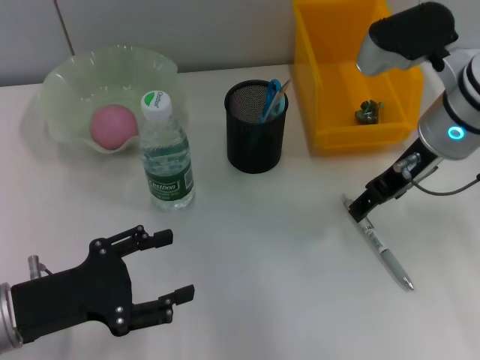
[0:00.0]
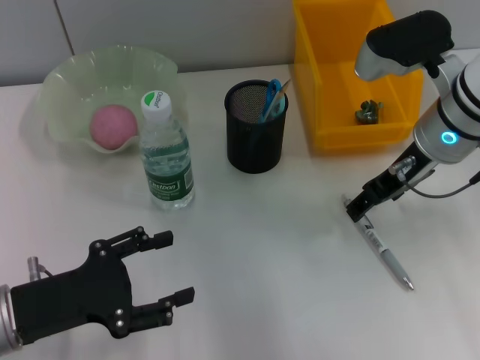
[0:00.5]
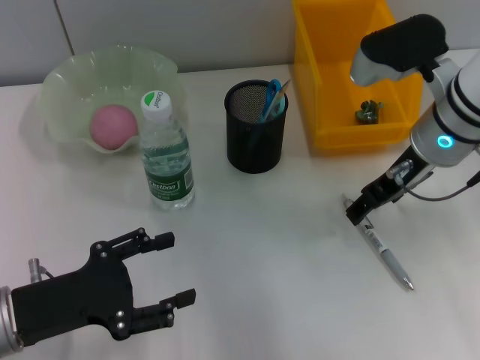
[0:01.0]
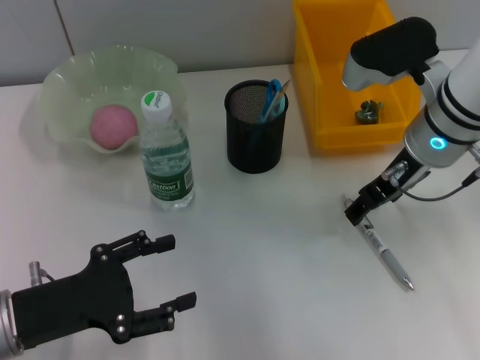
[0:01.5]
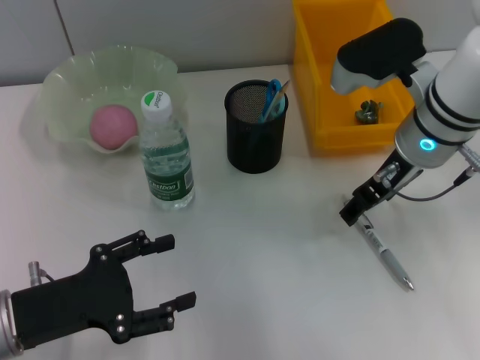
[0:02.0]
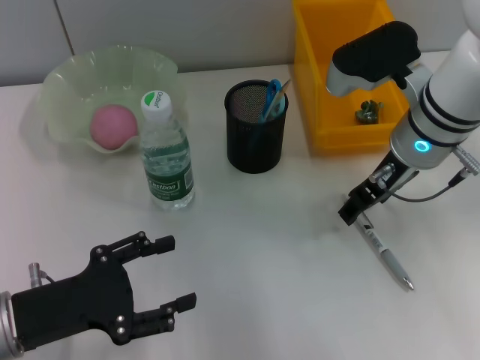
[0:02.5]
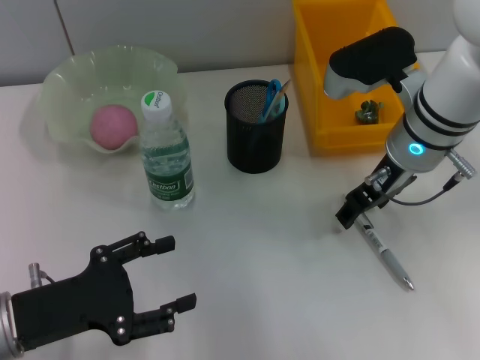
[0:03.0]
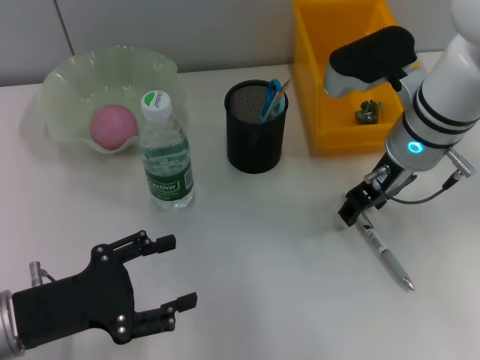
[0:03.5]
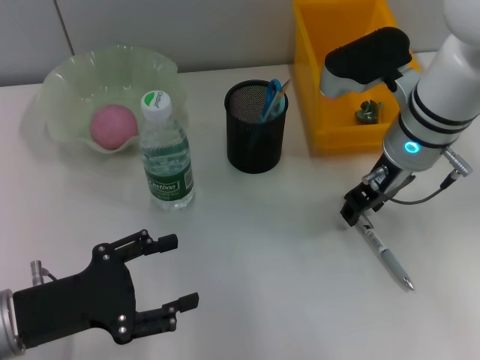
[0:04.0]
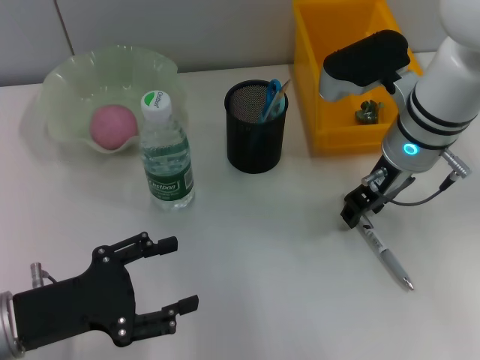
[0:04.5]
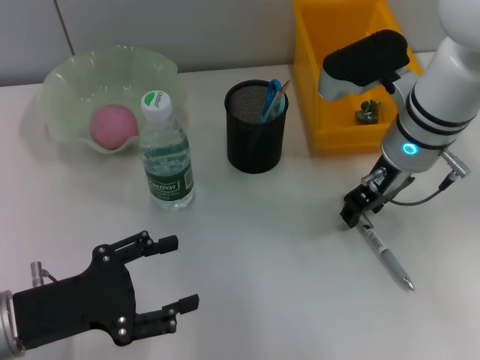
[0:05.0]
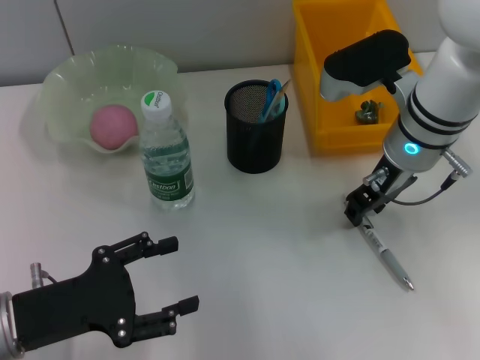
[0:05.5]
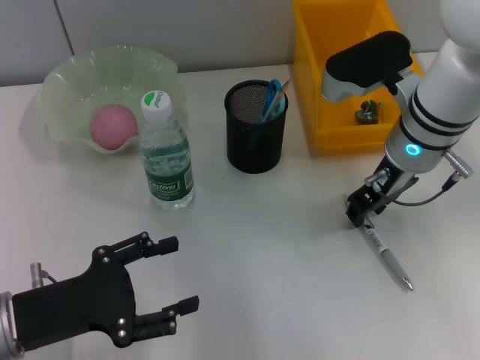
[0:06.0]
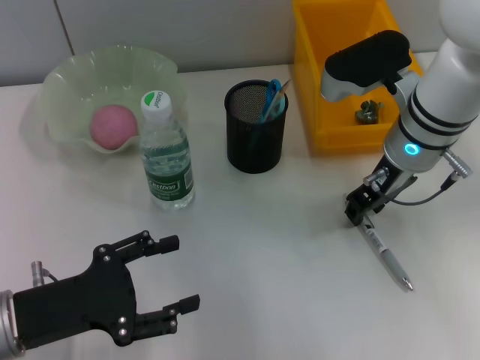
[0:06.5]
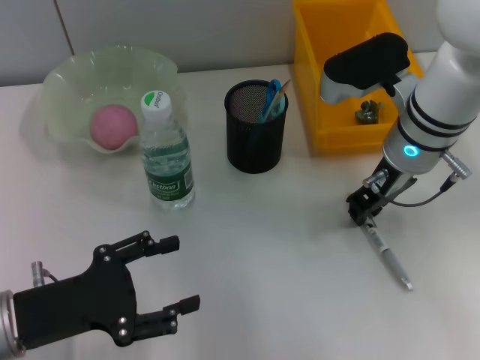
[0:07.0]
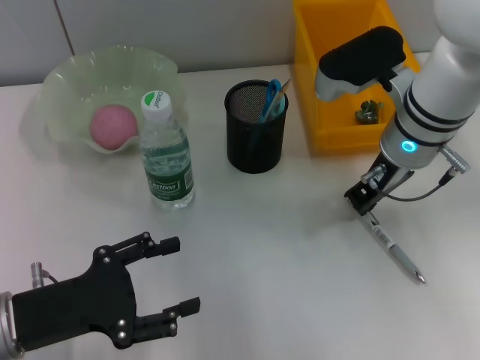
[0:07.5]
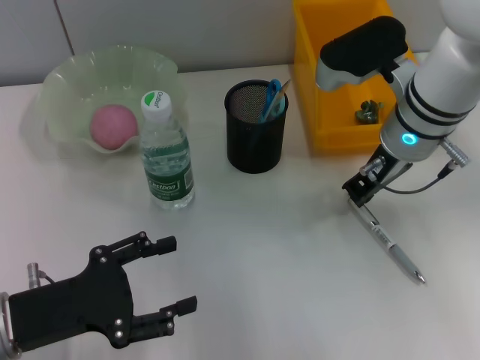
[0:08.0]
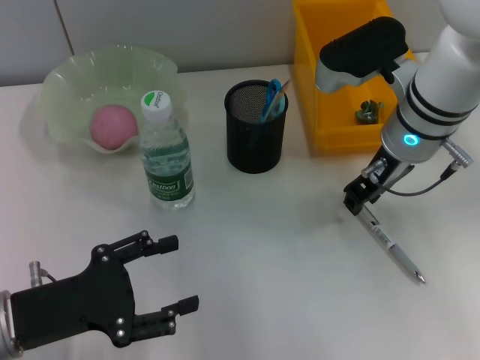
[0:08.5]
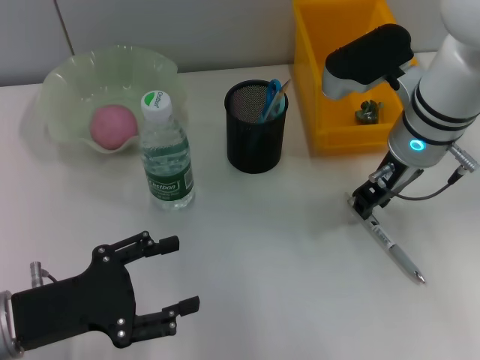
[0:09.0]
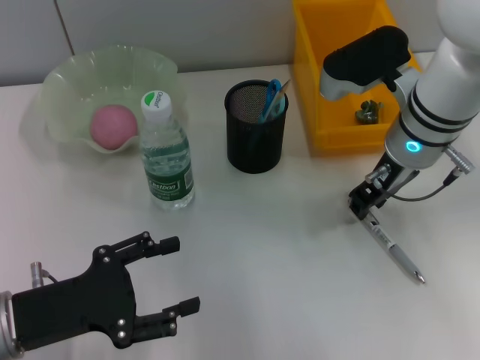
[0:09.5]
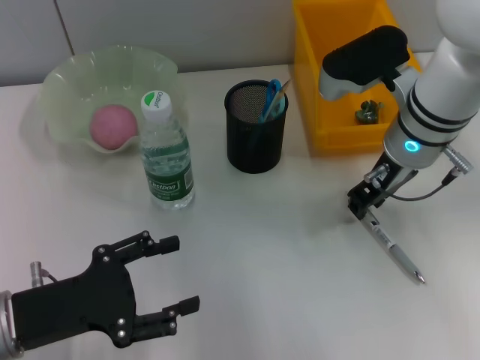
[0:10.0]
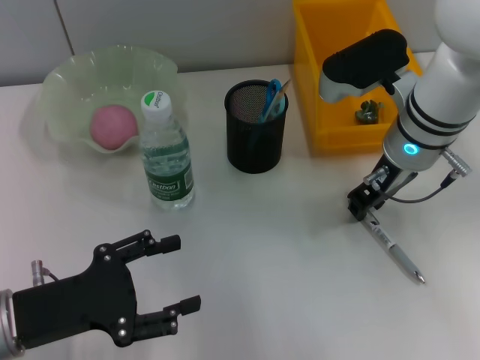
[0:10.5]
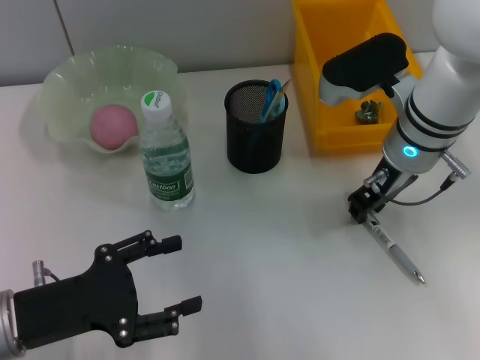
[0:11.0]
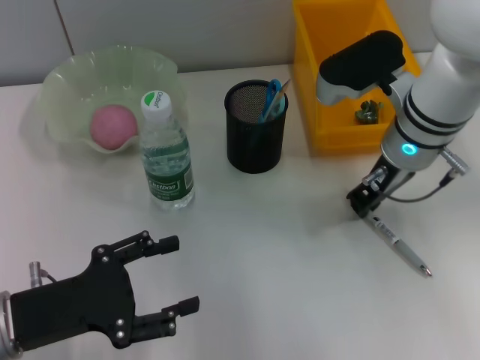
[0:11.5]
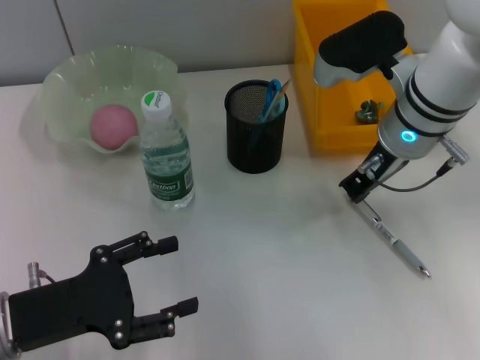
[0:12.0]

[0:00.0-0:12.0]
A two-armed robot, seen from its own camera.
0:00.0 to 0:02.0: The grippers make only small movements.
0:02.0 to 0:04.0: The right gripper closes its fingers.
0:04.0 to 0:06.0: Both grippers stay put.
0:06.0 to 0:08.0: The right gripper closes up.
0:08.0 to 0:10.0: Neither gripper changes place.
0:10.0 to 0:12.0: Both grippers stay put.

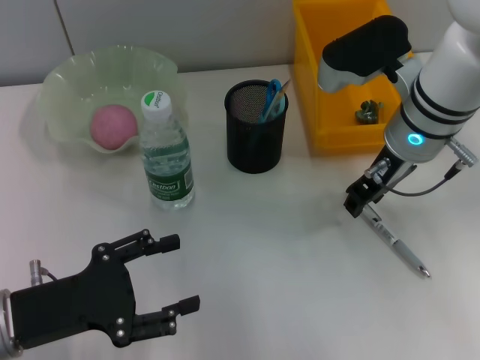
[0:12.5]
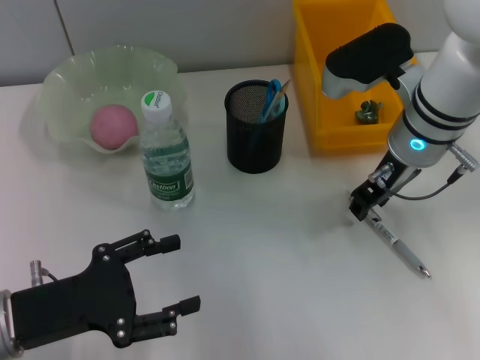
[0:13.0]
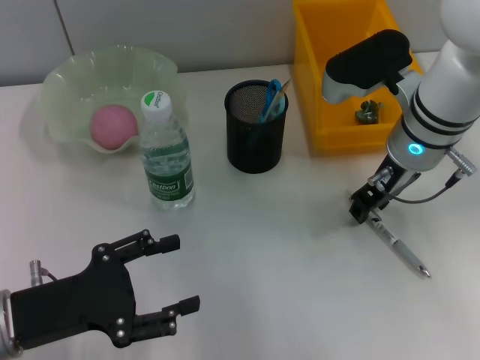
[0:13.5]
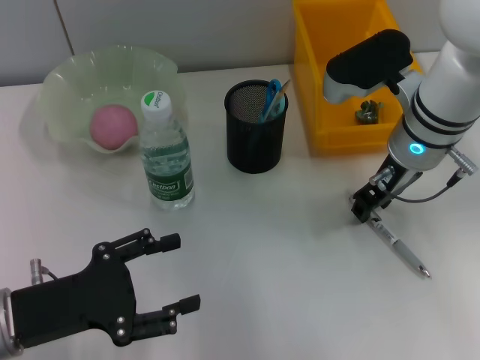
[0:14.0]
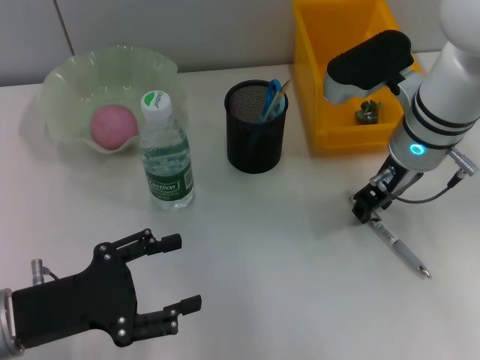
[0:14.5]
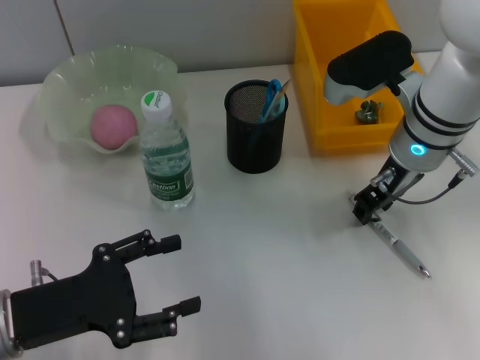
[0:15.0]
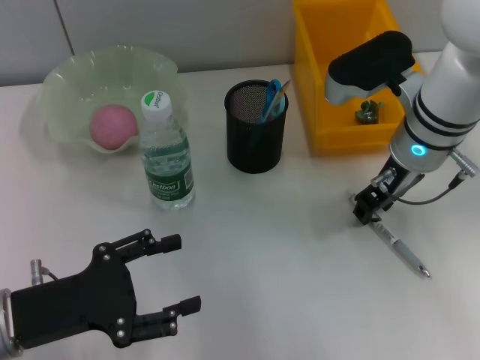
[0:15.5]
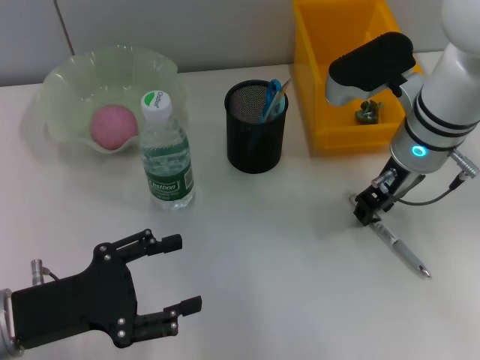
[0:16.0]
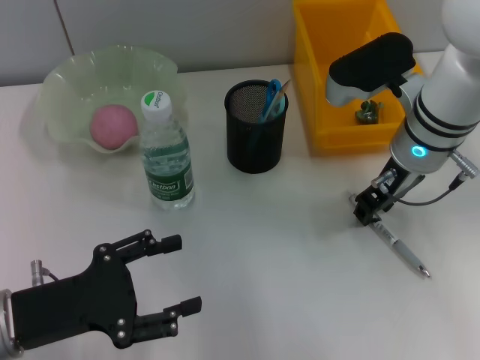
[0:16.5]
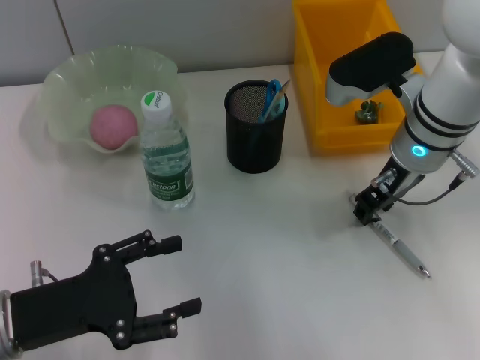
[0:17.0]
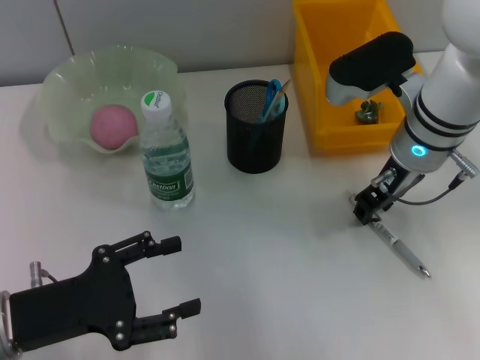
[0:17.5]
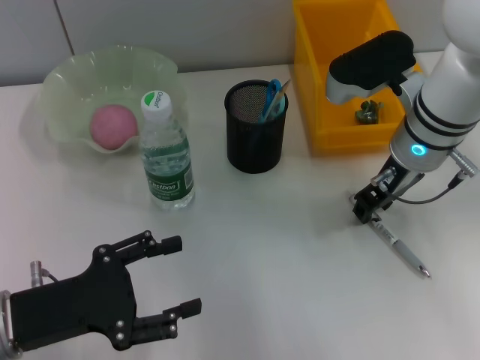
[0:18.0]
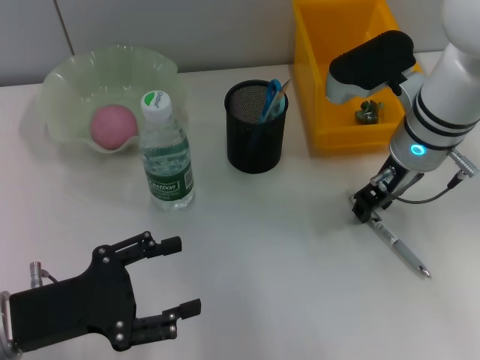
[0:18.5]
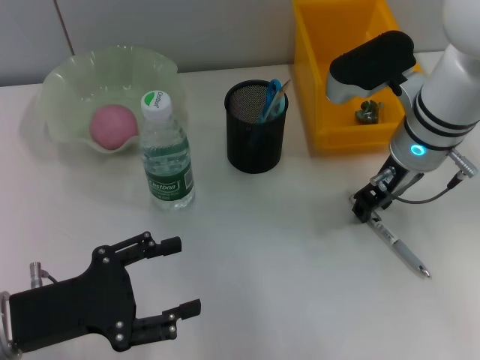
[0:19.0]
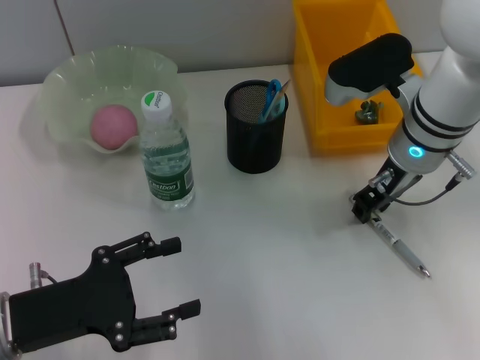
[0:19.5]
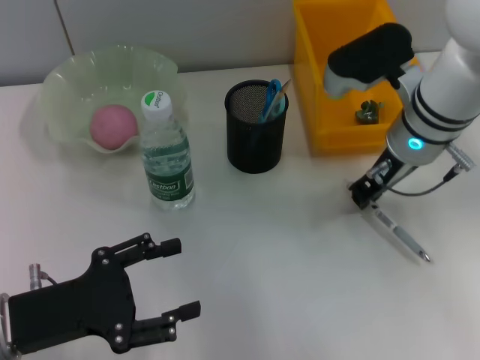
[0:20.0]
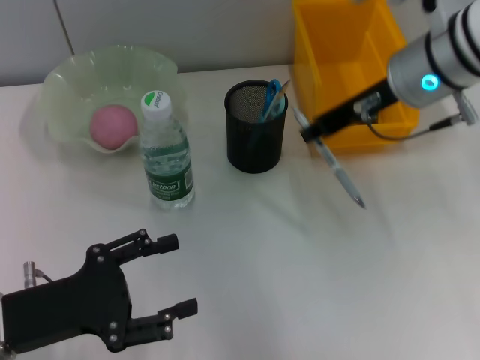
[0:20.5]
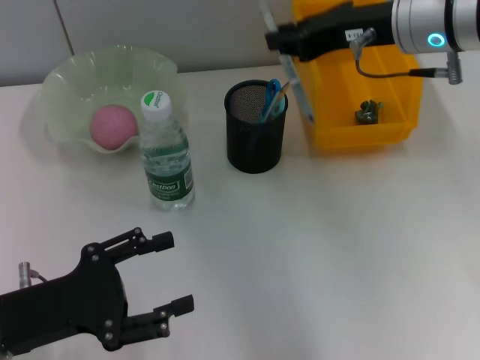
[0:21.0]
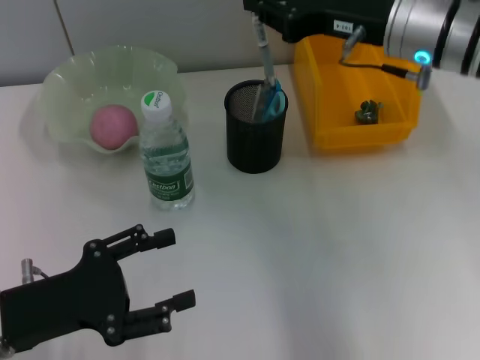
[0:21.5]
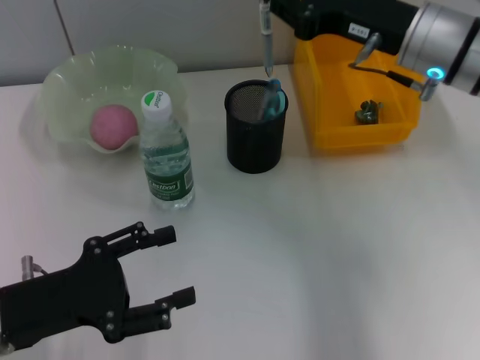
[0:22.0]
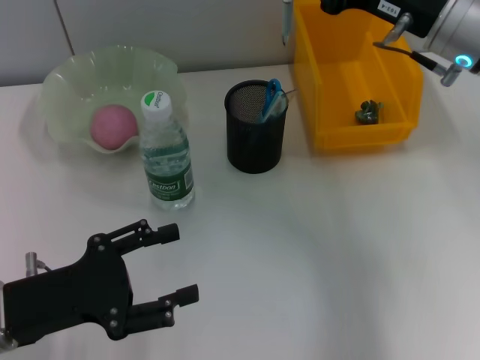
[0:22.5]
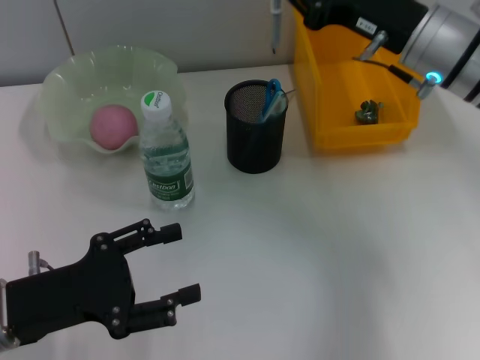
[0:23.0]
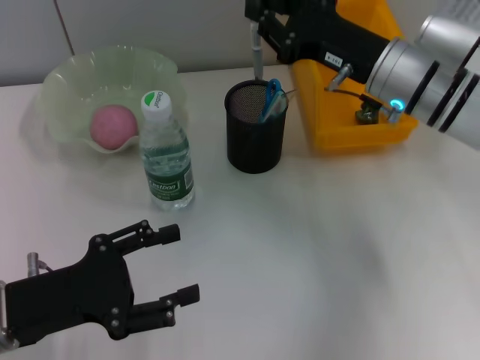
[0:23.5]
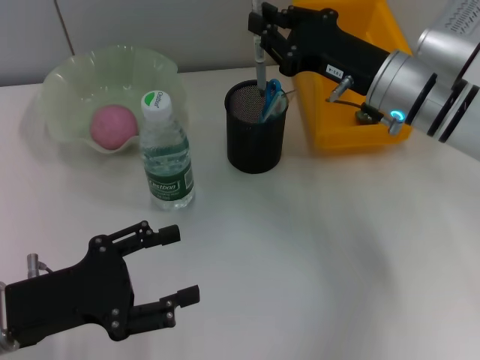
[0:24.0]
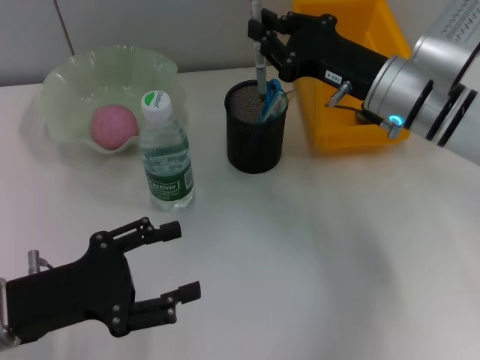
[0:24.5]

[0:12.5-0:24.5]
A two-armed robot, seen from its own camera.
Step, 0:12.5 to 0:19.5: Grab the gray spring-action pen with the right hand.
0:12.5 to 0:14.5: The grippers make only small movements.
0:14.5 to 0:18.5: Neither gripper changes place.
0:18.5 to 0:20.5: The right gripper moves upward, some 5 cm.
0:22.5 to 0:24.5: The right gripper heads downward, covering approximately 10 cm.

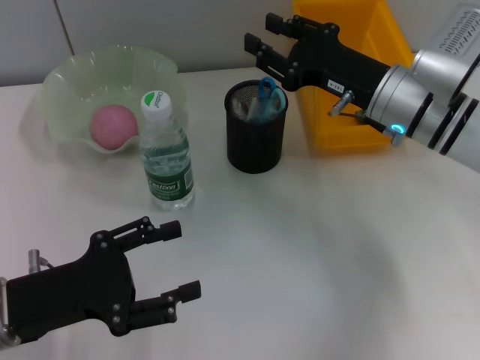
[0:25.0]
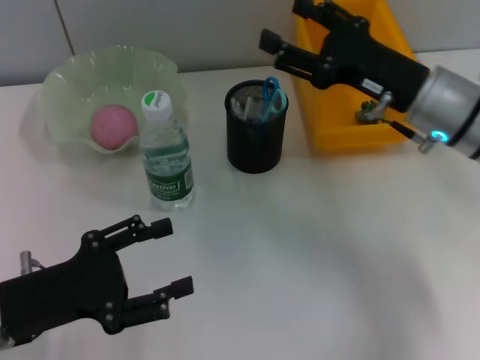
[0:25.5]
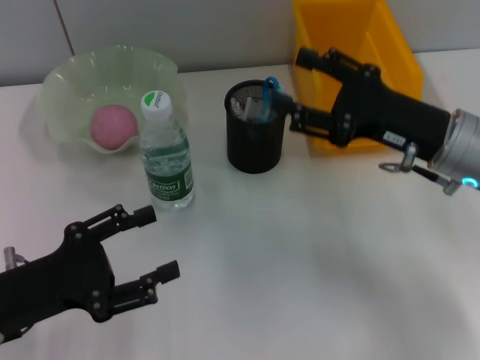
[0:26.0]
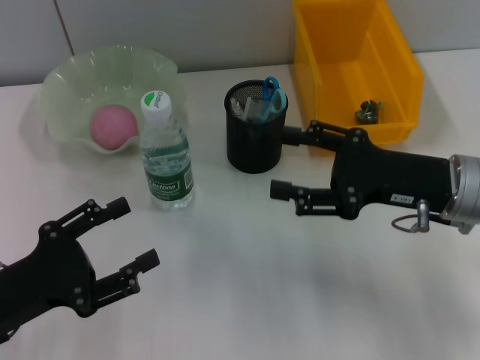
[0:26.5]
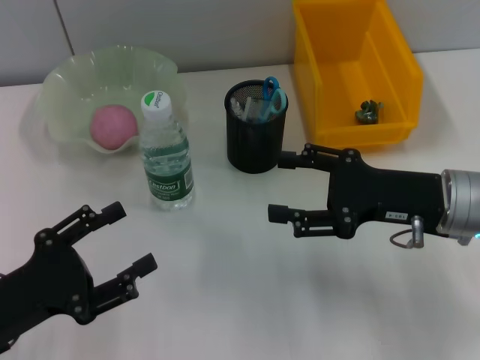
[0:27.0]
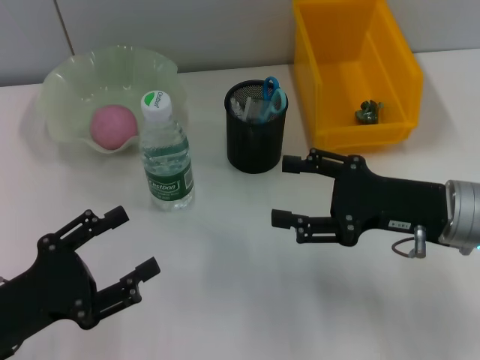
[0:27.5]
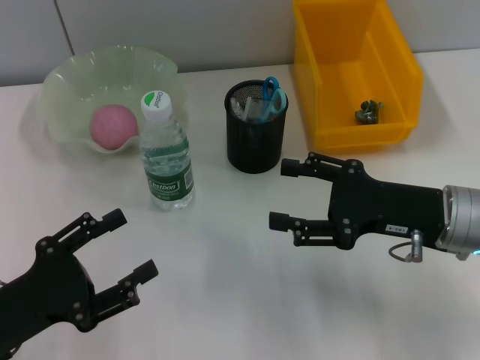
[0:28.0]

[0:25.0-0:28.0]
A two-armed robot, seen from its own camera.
0:25.0 to 0:26.5: The right gripper goes about 10 cm backward, and opens up.
0:26.5 to 0:28.0: There are only small adjustments of the grippers.
